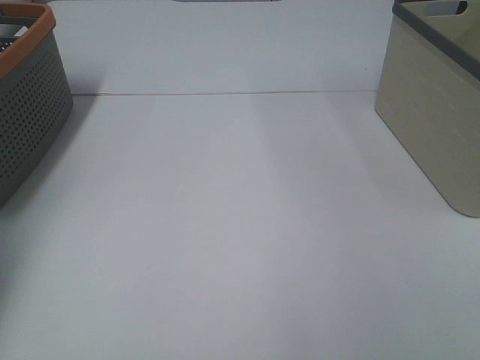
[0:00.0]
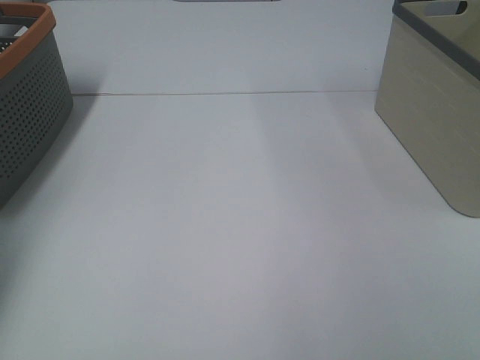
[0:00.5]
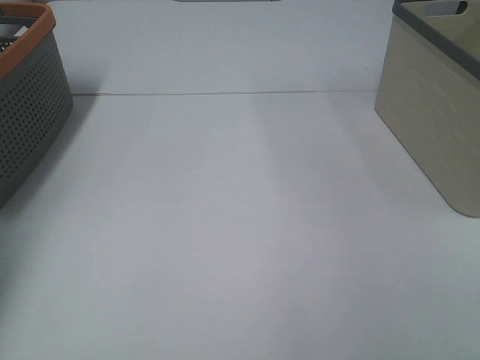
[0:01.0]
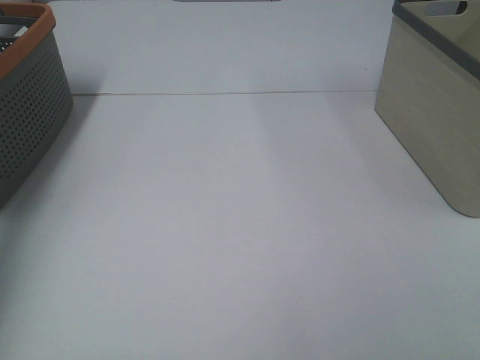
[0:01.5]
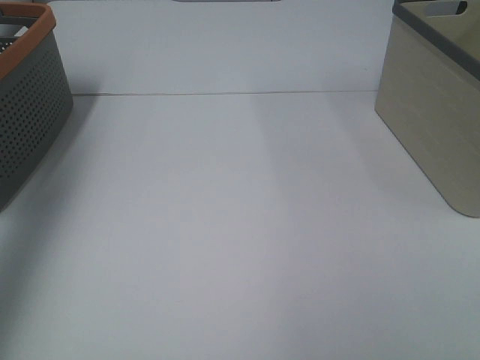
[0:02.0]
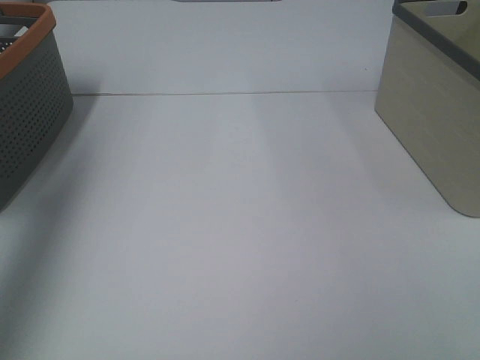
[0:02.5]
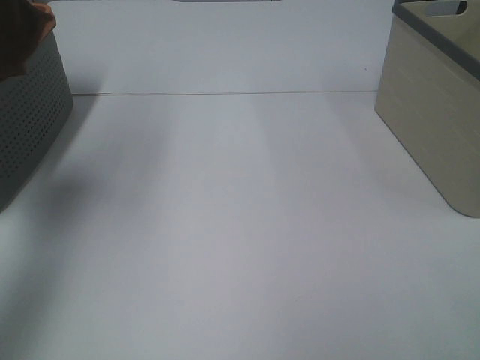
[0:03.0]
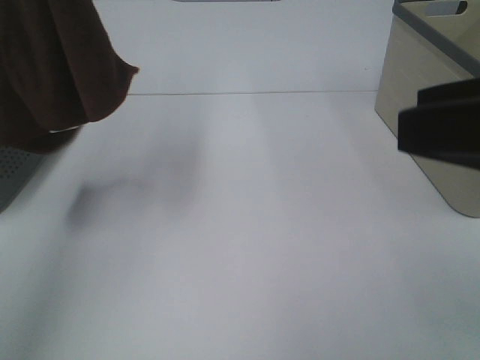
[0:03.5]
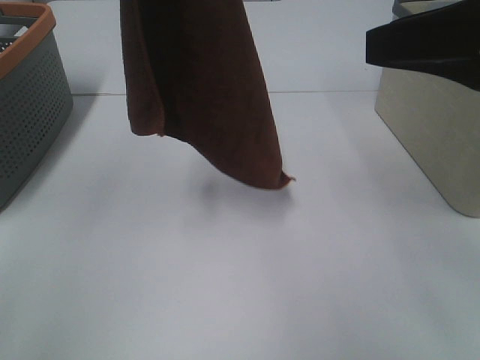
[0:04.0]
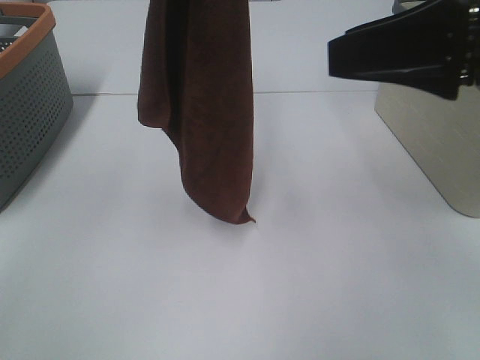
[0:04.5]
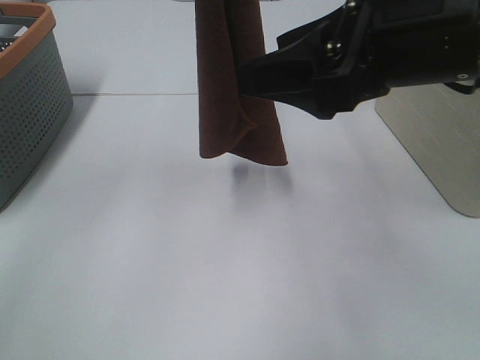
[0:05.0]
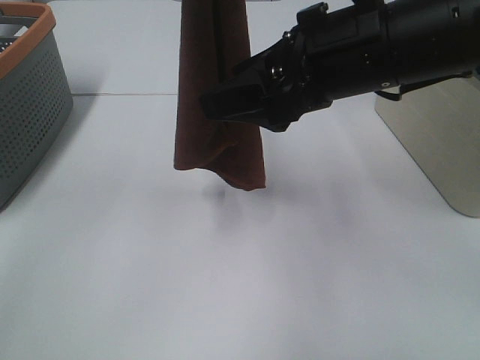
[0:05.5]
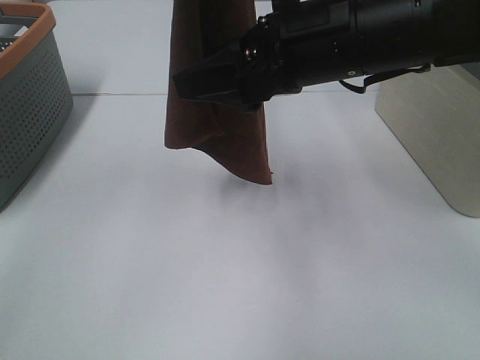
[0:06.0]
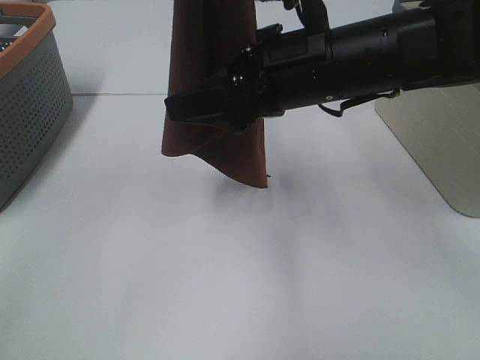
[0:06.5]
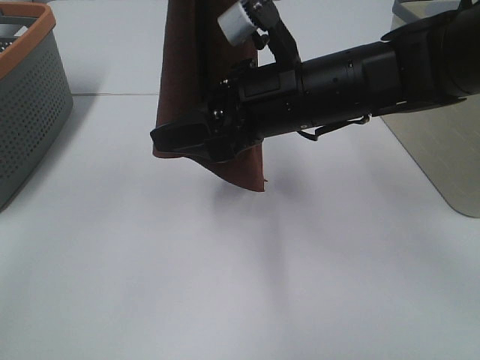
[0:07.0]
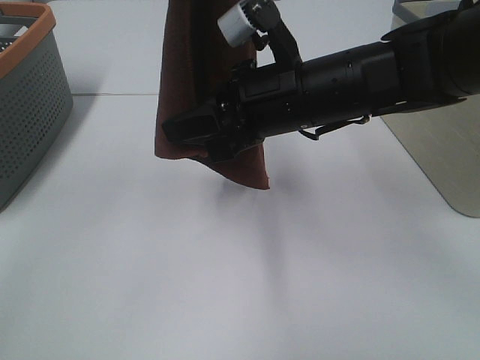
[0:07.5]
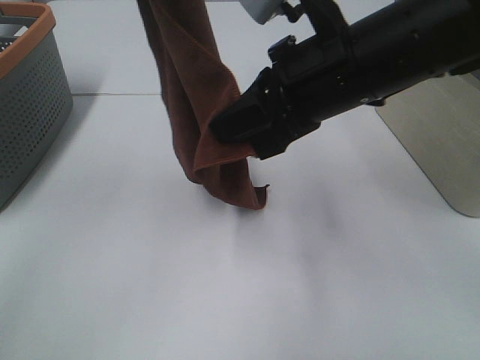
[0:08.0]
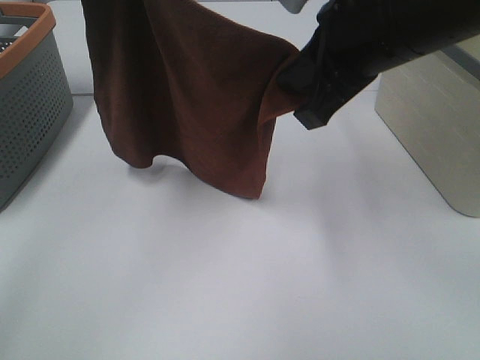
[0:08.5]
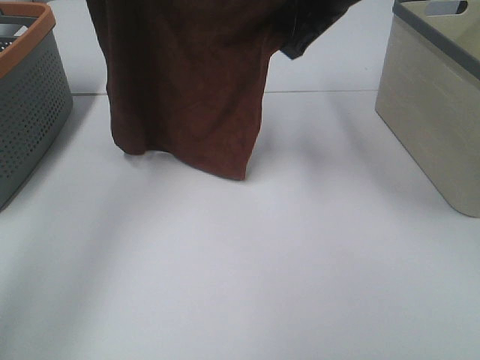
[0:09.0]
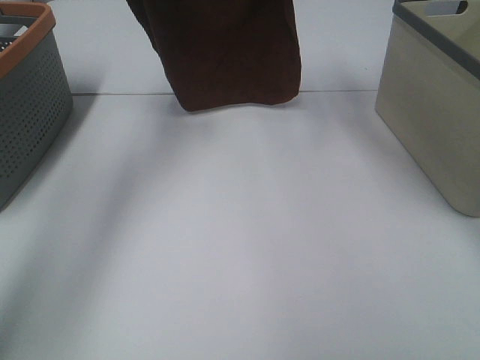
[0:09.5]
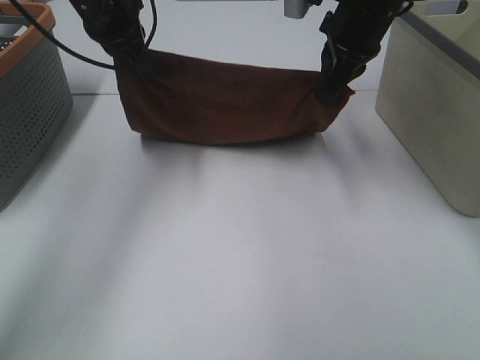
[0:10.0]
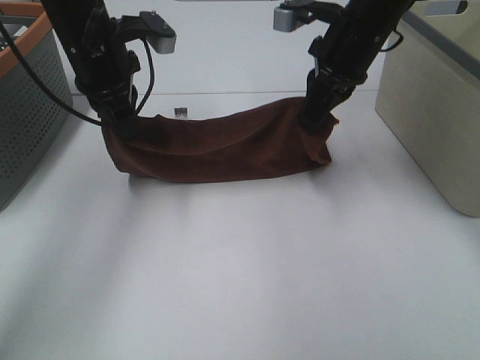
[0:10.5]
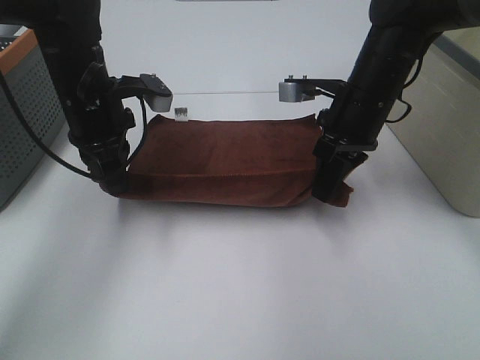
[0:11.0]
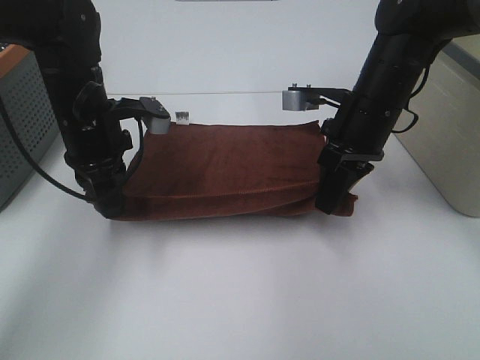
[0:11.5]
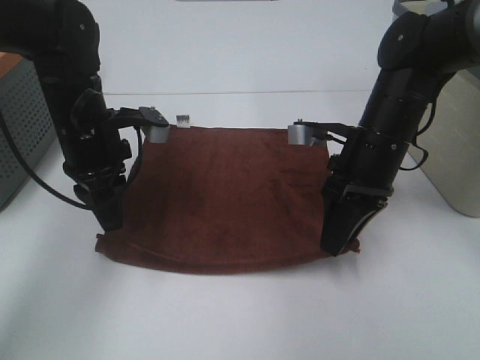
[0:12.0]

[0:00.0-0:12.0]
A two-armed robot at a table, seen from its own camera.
Task of the whole recording: Remove the towel and place it.
Step, 0:02.5 to 0:05.5: Right hand: grab a corner of the brown towel and straighten it.
Step, 0:06.0 to 0:08.0: Left hand: spread the brown towel flat on the table.
Step, 0:06.0 to 0:08.0: Right hand: spread the brown towel flat on the table.
0:00.0 to 0:02.0: The left gripper is displaced upward and backward by about 35 cm, and closes.
0:02.0 to 0:04.0: The left gripper travels to the right by about 20 cm. The right gripper is displaced forward by roughly 20 cm.
0:04.0 to 0:06.0: The right gripper travels to the left and forward by some 15 cm.
0:06.0 to 0:08.0: The right gripper closes its fingers.
0:08.0 to 0:10.0: The left gripper is displaced downward and forward by approximately 20 cm, while the right gripper travels forward by some 15 cm.
0:10.0 to 0:12.0: The two grippers go roughly 15 cm downward and backward. The right gripper opens up.

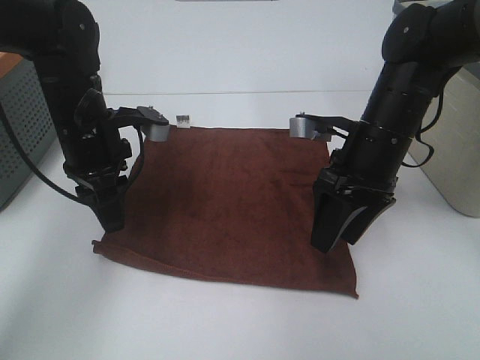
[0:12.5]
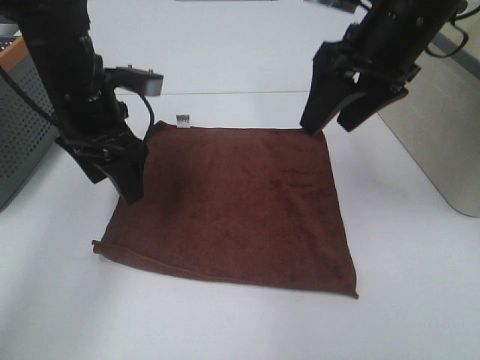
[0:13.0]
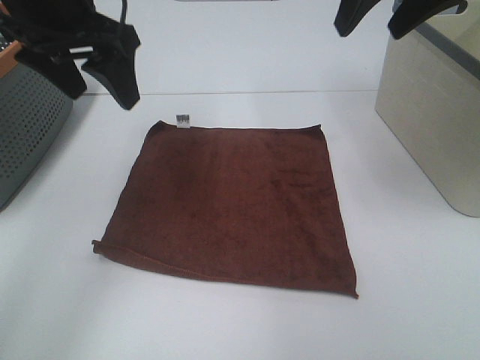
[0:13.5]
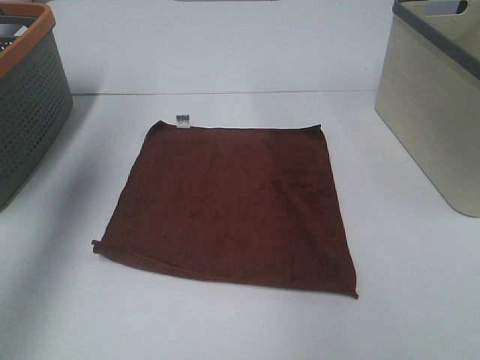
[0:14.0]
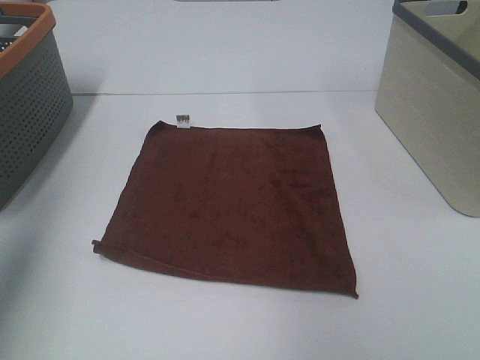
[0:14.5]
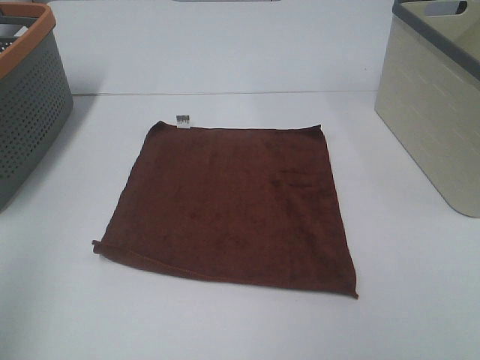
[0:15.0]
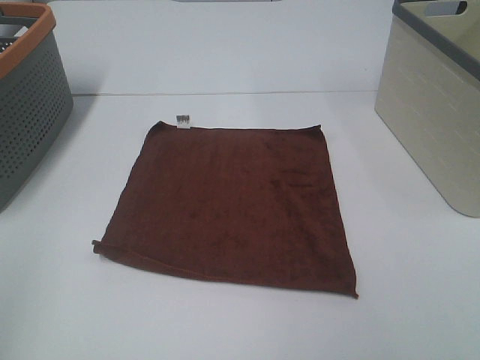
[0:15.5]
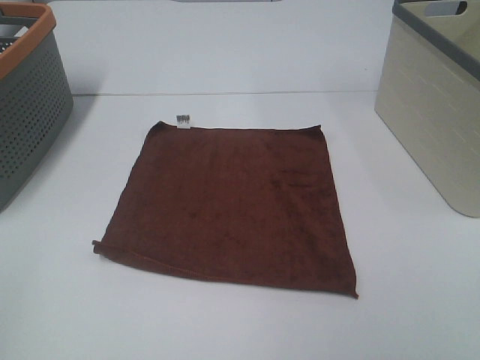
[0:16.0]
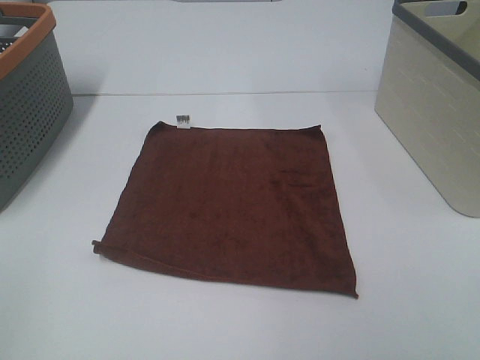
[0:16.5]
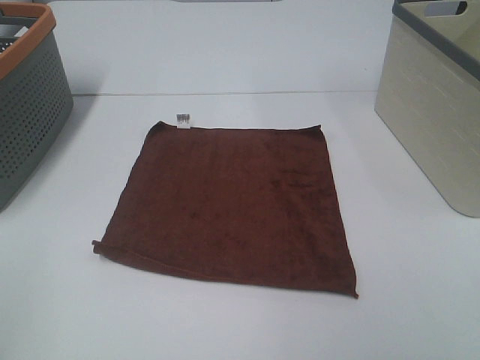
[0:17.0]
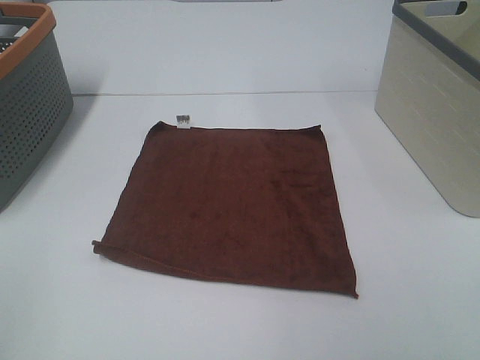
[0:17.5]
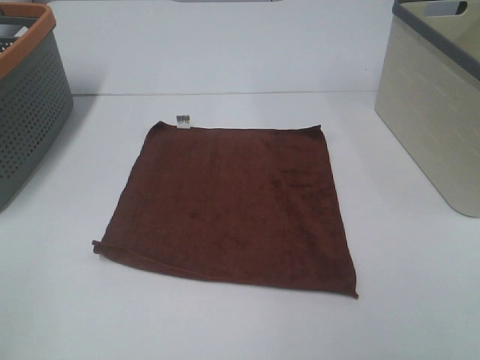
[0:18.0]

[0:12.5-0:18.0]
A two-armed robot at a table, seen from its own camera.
Task of the whole recording: Remove the towel and place it.
0:12.5 to 0:14.5: The left gripper travels upward, to the left and backward by roughly 35 cm, and opens up, while the right gripper heads upward, to the right and backward, covering approximately 30 cm.
0:14.5 to 0:16.0: The left gripper travels backward and downward by roughly 25 cm.

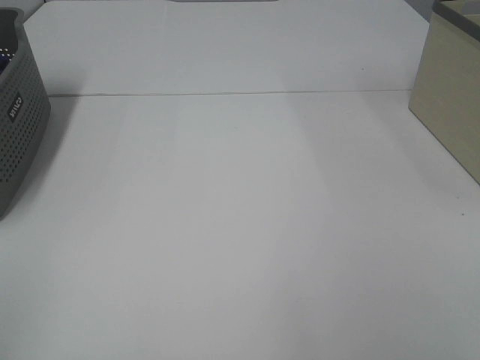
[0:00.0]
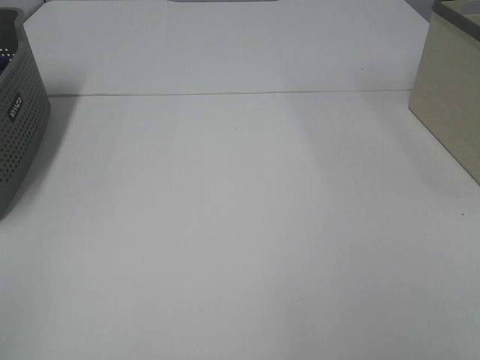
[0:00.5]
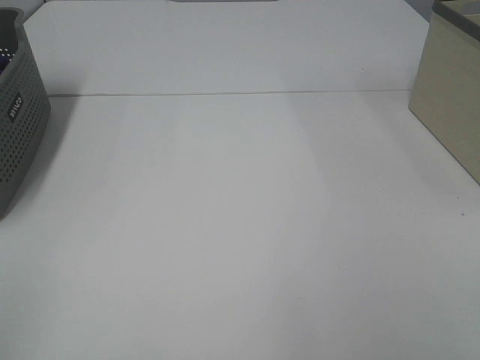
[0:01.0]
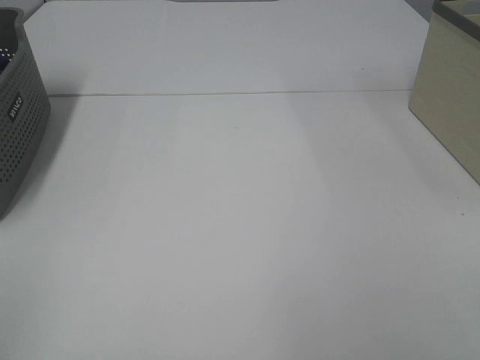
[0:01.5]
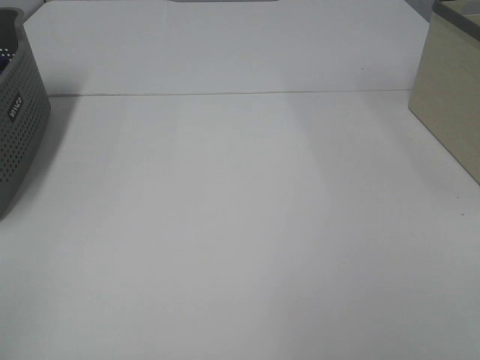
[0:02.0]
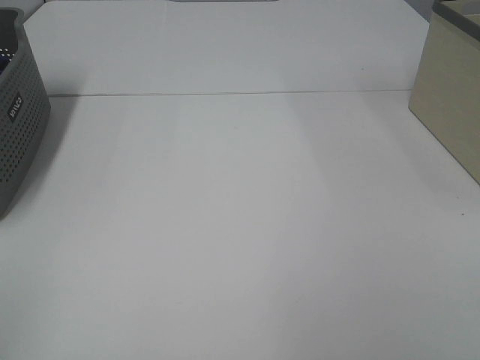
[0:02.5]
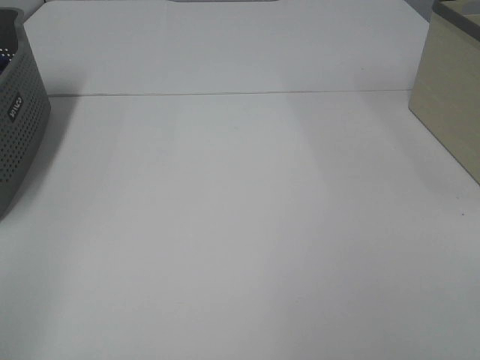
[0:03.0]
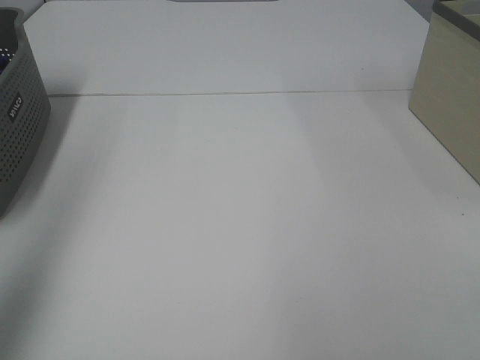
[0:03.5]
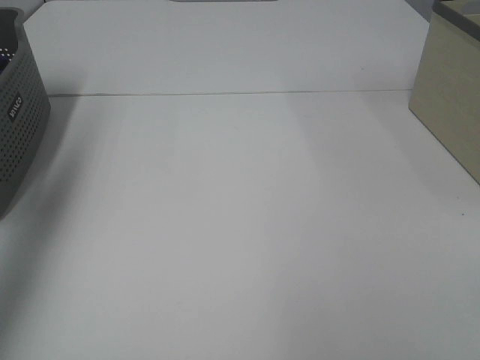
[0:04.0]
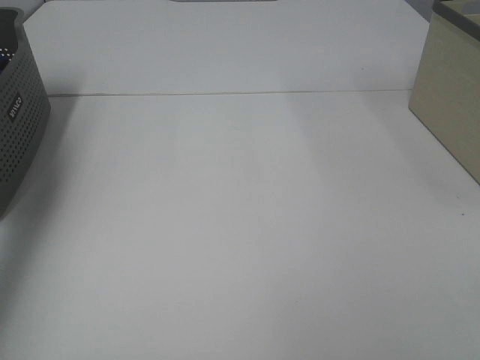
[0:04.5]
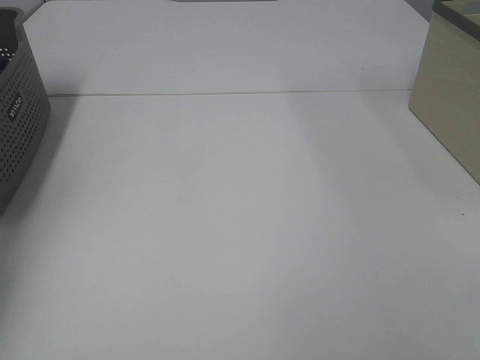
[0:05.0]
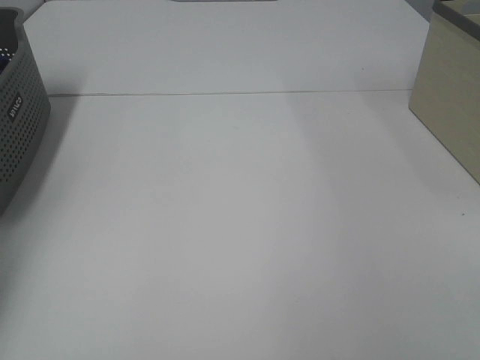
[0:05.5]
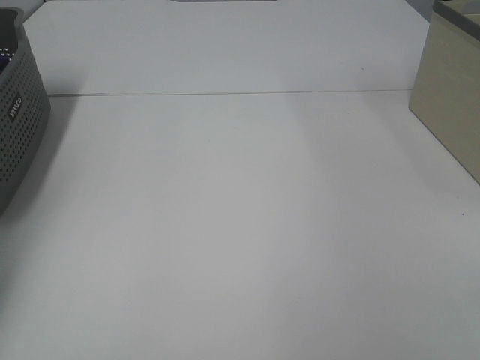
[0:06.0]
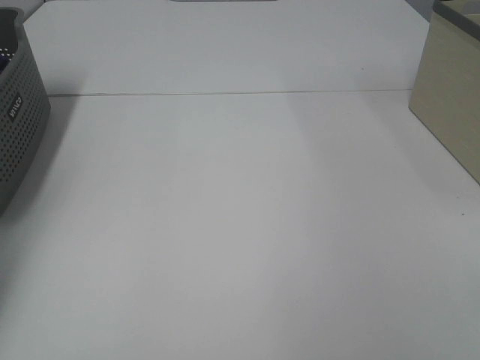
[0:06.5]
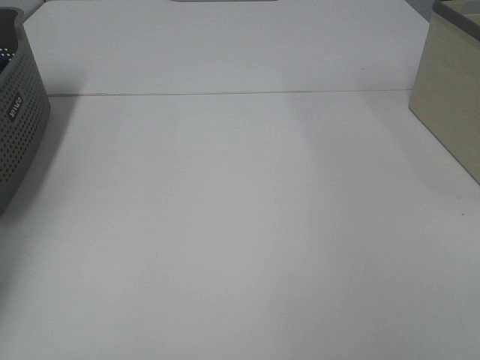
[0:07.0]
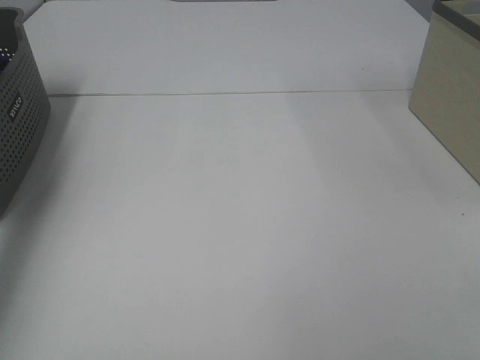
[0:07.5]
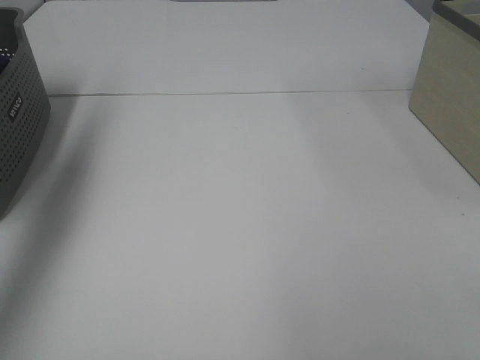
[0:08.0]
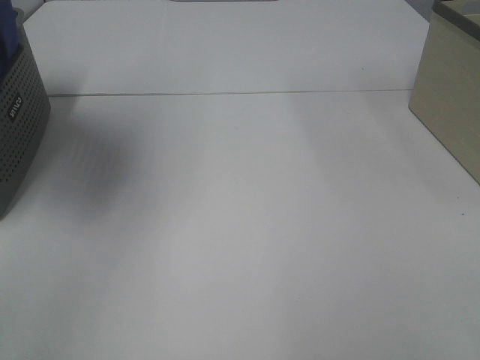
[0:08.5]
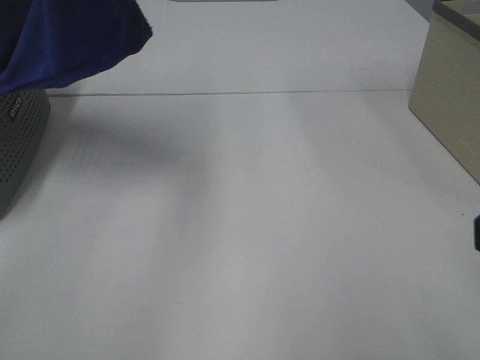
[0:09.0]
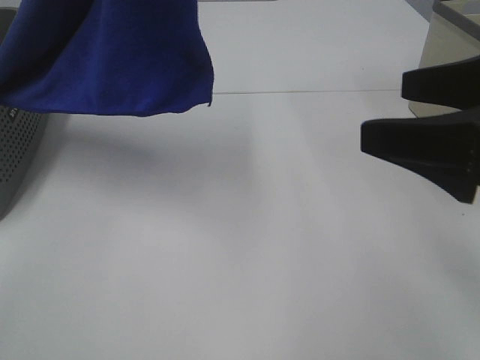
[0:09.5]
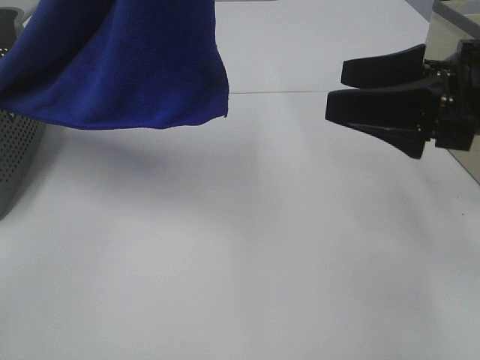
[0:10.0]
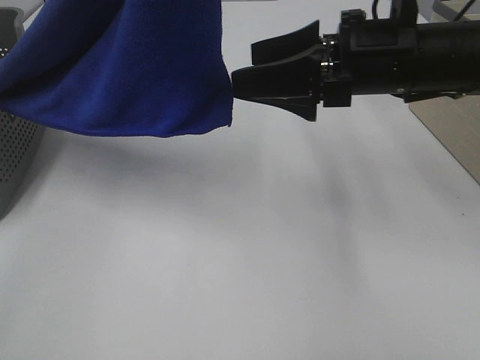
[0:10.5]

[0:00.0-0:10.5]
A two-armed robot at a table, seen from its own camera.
Task of the whole recording: Remove the towel and place it.
0:00.0 to 0:02.0: The two grippers keep their place.
0:02.0 to 0:04.0: The left gripper is displaced forward and upward by some 35 cm.
0:04.0 to 0:06.5: The left gripper shifts about 30 cm downward and forward, and closes.
0:06.5 to 0:08.5: The left gripper goes roughly 40 cm upward and to the right.
0:08.5 to 0:10.5: The right gripper moves forward and to the left, about 30 cm, while the left gripper heads to the right and backward, covering approximately 15 cm.
